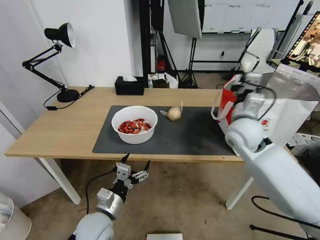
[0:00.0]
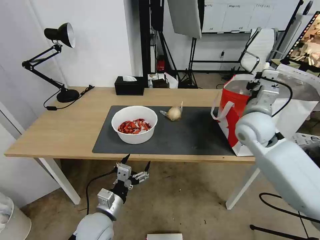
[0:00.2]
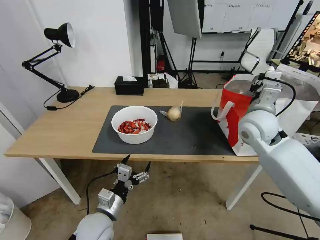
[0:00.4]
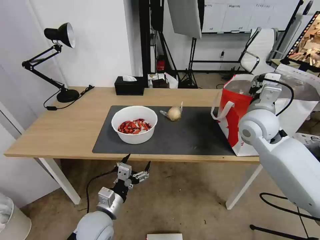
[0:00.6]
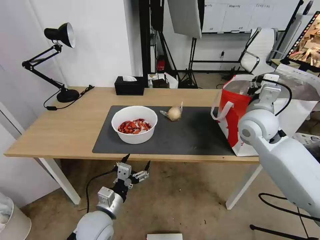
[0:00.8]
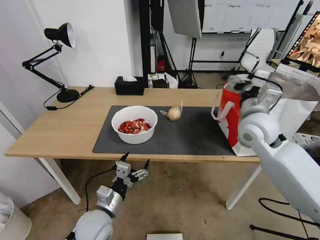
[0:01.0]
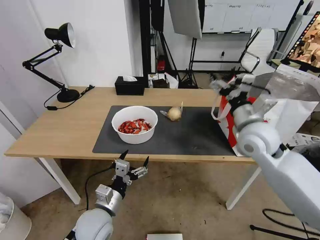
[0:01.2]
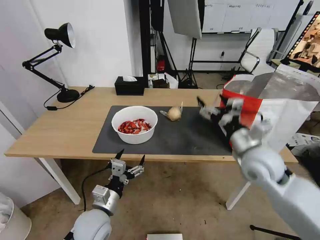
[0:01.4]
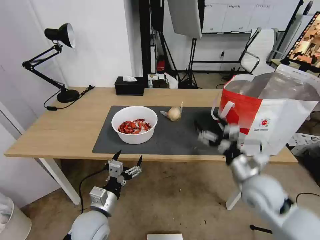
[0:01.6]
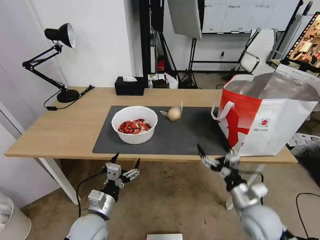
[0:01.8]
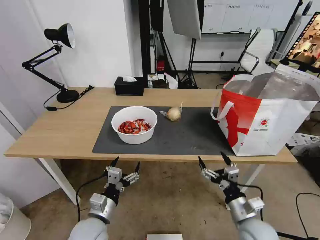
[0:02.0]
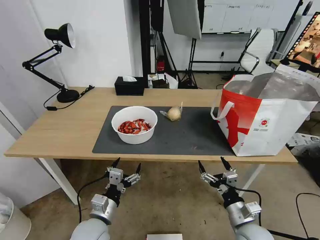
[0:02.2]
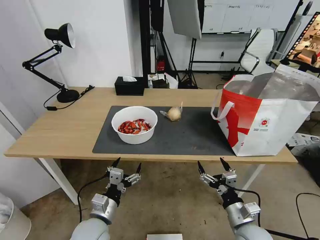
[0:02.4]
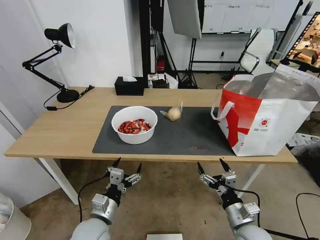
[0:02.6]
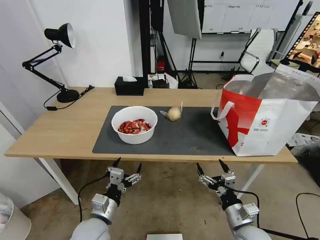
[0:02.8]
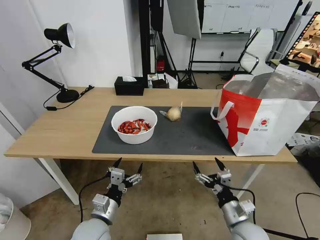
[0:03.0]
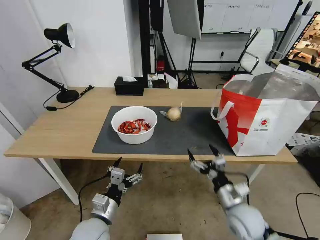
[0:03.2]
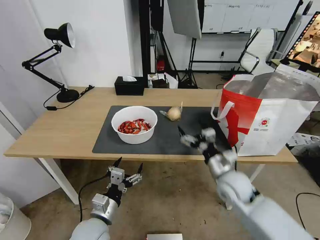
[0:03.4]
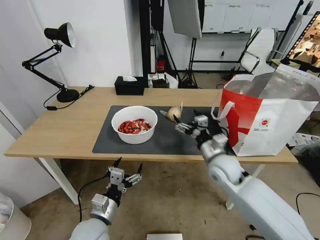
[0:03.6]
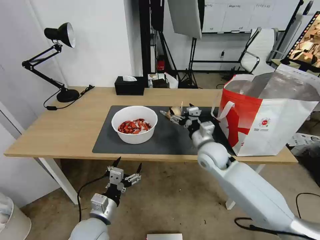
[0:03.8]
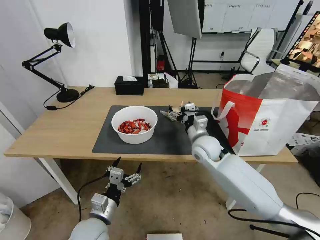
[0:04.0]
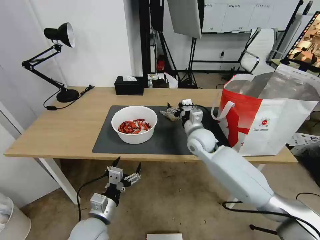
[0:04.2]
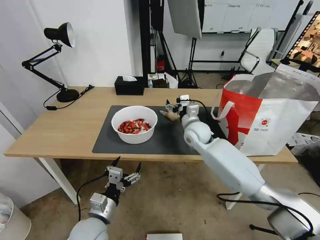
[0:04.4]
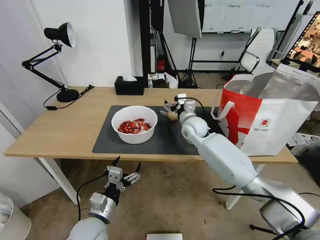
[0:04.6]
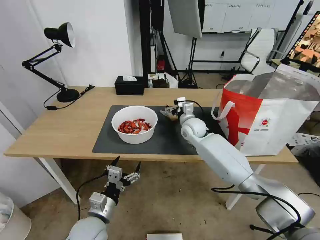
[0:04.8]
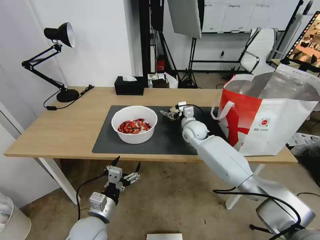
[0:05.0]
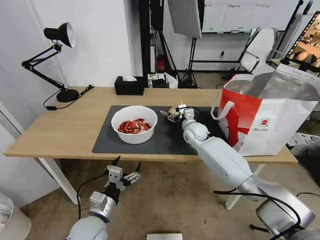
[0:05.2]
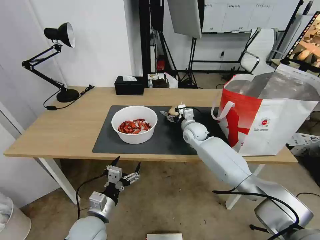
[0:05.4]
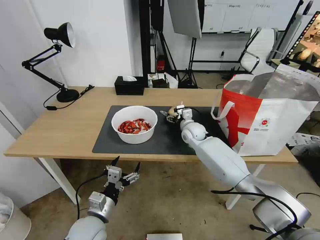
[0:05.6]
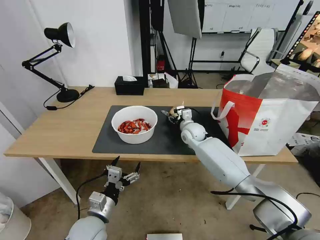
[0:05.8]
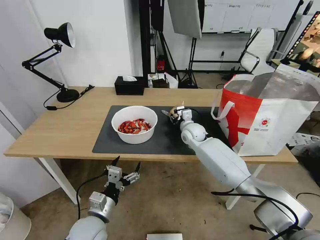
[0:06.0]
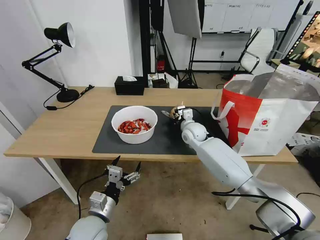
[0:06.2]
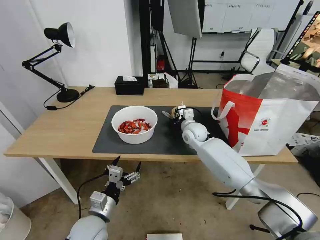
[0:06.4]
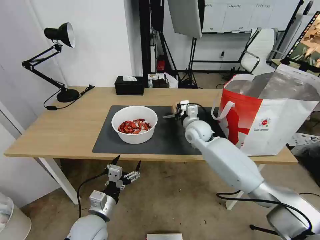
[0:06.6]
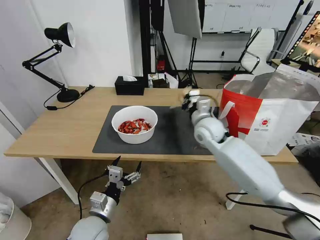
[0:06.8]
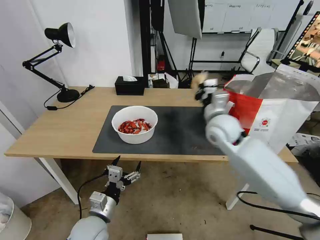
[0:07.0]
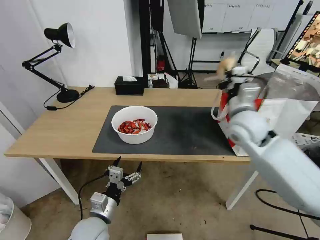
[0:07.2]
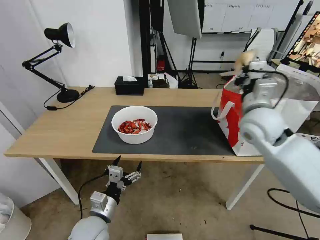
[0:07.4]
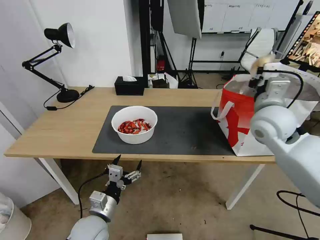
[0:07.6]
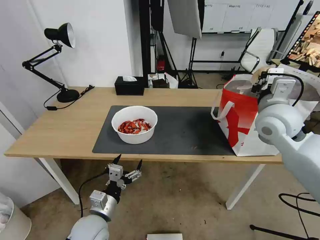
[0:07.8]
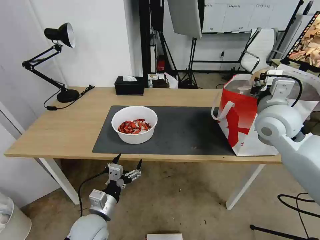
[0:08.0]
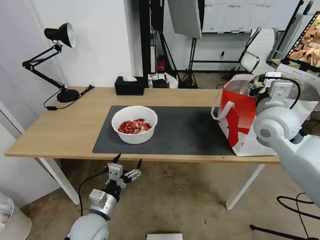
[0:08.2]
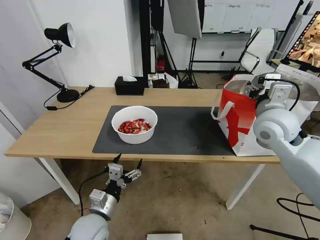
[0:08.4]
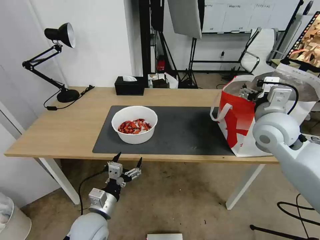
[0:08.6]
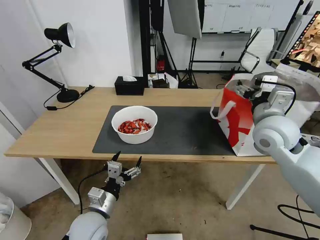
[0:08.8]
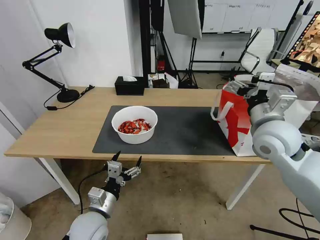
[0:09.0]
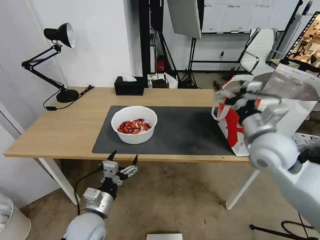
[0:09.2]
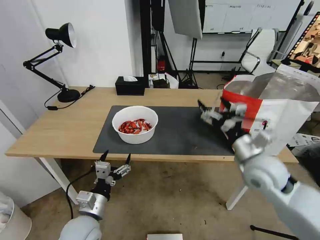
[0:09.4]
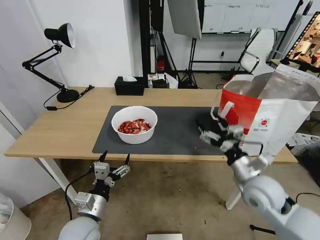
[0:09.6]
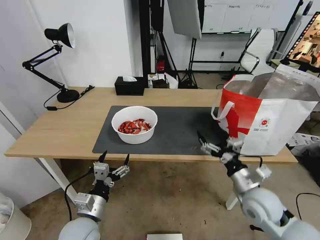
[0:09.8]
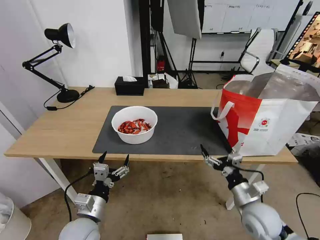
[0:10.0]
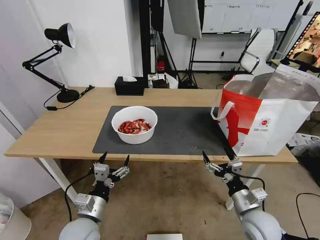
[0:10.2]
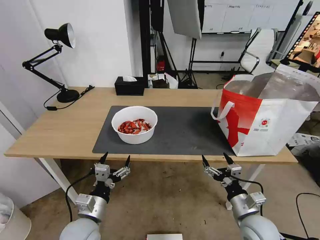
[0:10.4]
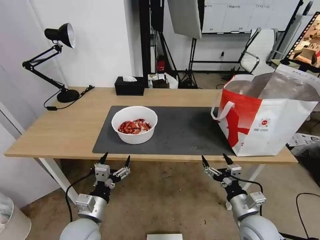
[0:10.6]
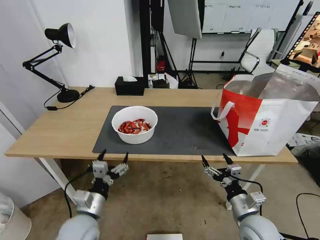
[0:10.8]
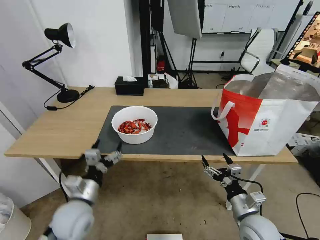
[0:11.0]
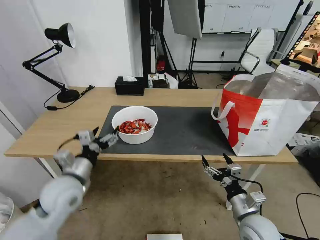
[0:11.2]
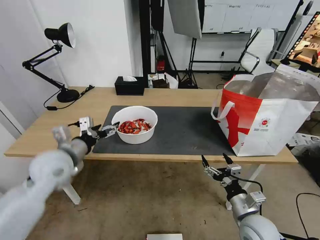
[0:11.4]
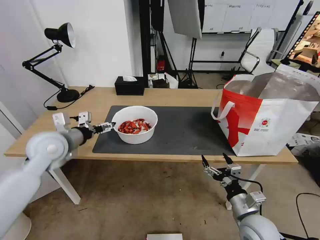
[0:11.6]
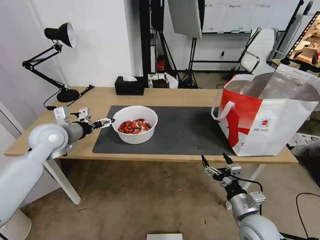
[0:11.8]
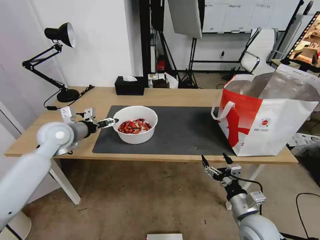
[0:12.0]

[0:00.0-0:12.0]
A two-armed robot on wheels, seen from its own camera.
Task of the whole recording: Pick up the trash from the table and place it into the takeout bag.
0:00.0 to 0:01.6: The right gripper travels backward and downward by roughly 15 cm, and opens its fingers.
0:01.6 to 0:03.0: The right gripper heads downward and backward, covering about 15 cm.
0:03.0 to 0:04.4: The right gripper is displaced forward and upward by about 35 cm.
0:04.4 to 0:06.0: The right gripper shifts roughly 5 cm downward, and closes its fingers.
0:06.0 to 0:07.6: The right gripper goes about 30 cm upward, to the right and backward, and closes up.
0:07.6 to 0:09.0: The right gripper opens up.
0:09.0 to 0:10.4: The right gripper goes roughly 30 cm downward and backward.
0:10.4 to 0:12.0: The left gripper goes roughly 30 cm forward, upward and to the left.

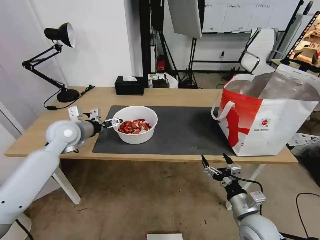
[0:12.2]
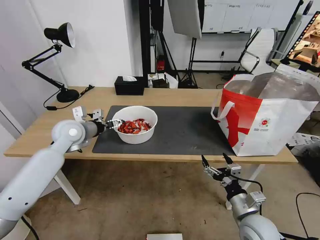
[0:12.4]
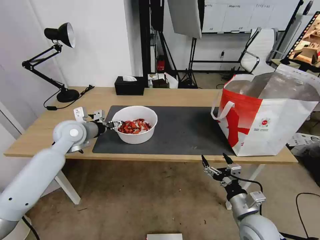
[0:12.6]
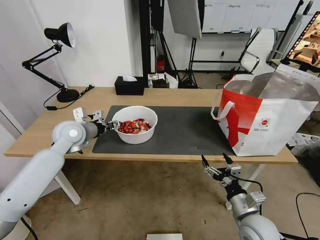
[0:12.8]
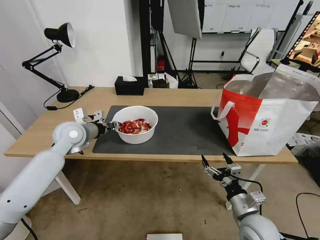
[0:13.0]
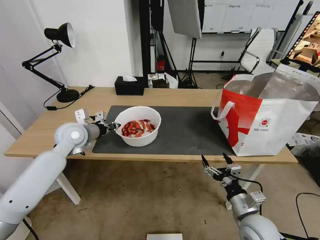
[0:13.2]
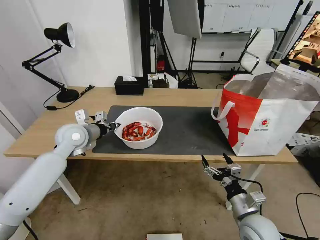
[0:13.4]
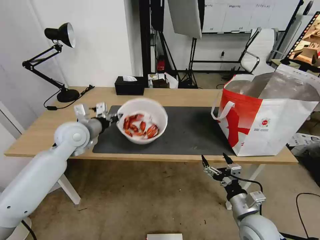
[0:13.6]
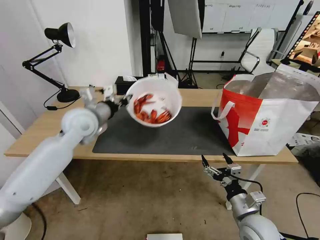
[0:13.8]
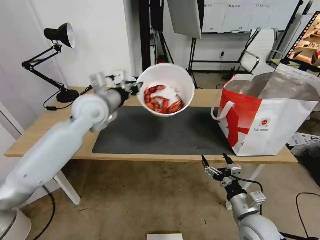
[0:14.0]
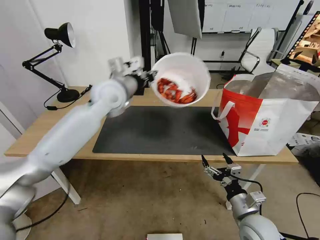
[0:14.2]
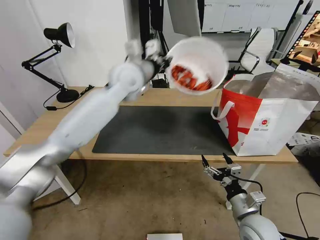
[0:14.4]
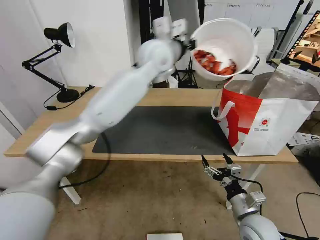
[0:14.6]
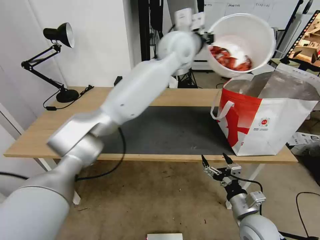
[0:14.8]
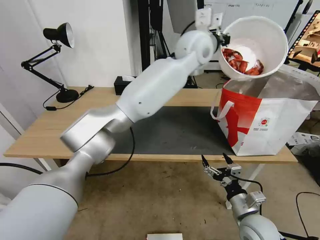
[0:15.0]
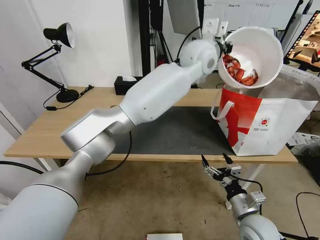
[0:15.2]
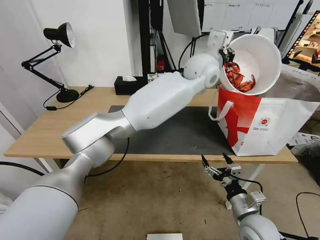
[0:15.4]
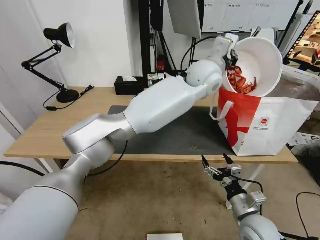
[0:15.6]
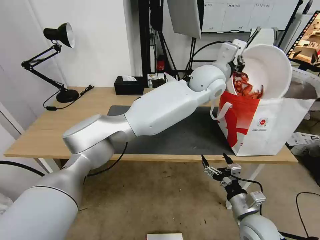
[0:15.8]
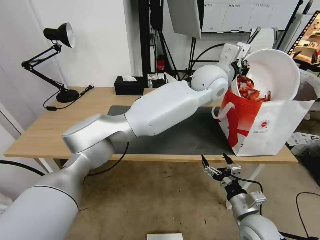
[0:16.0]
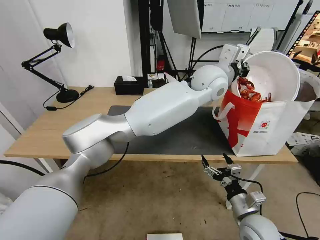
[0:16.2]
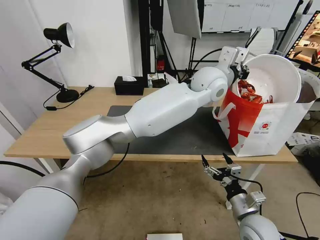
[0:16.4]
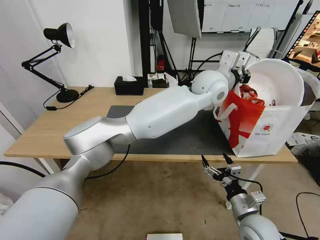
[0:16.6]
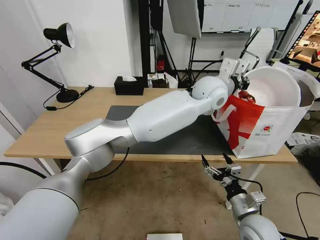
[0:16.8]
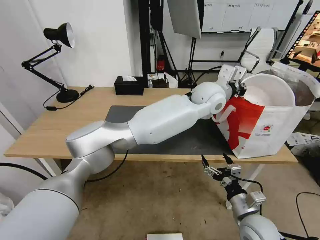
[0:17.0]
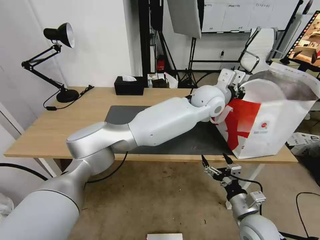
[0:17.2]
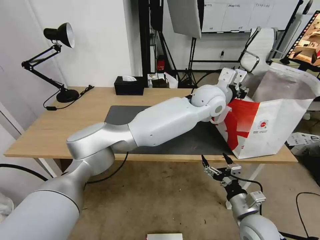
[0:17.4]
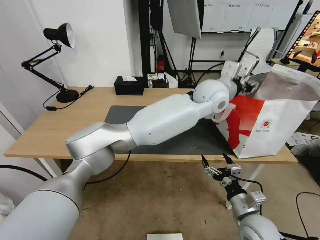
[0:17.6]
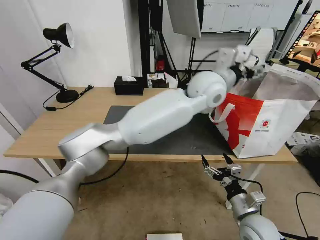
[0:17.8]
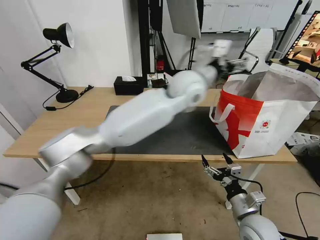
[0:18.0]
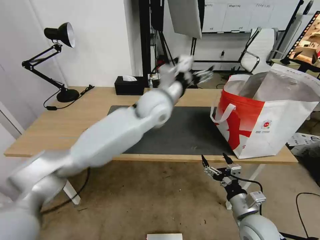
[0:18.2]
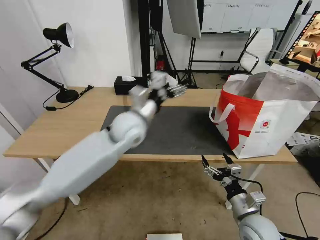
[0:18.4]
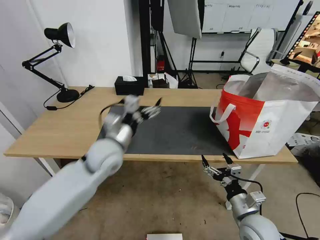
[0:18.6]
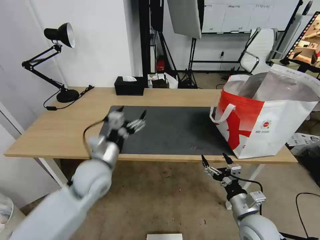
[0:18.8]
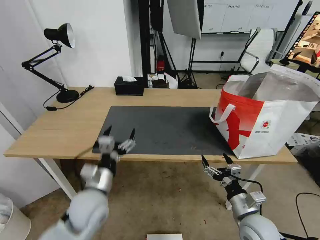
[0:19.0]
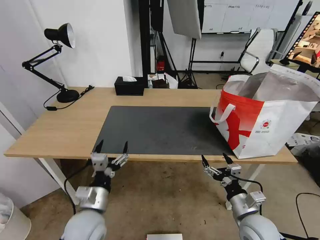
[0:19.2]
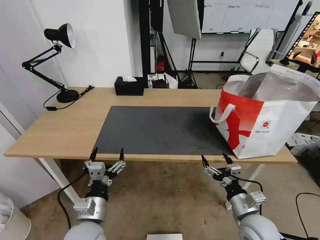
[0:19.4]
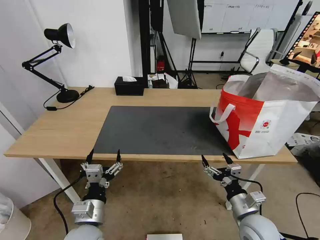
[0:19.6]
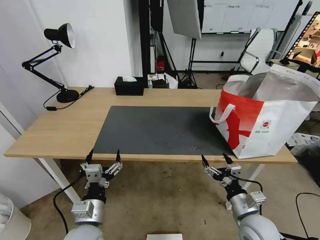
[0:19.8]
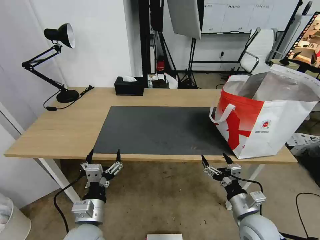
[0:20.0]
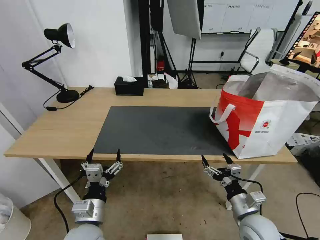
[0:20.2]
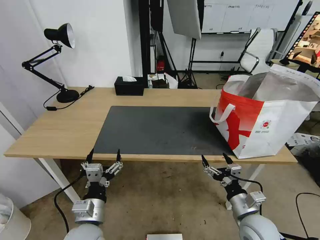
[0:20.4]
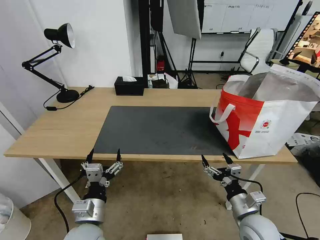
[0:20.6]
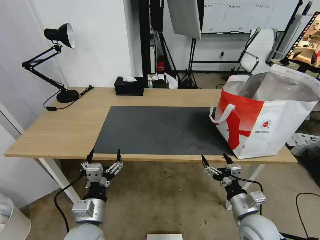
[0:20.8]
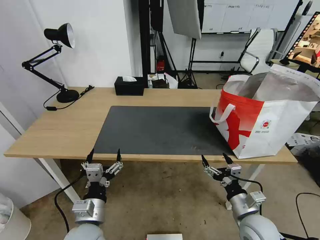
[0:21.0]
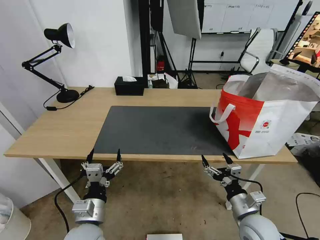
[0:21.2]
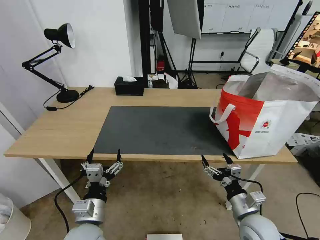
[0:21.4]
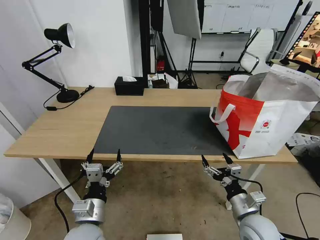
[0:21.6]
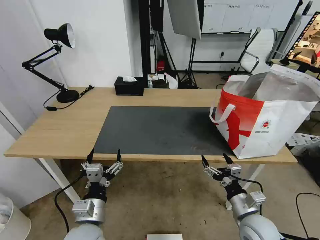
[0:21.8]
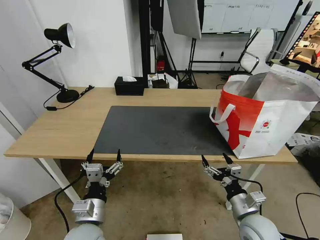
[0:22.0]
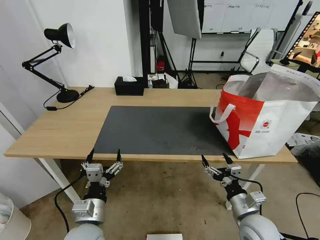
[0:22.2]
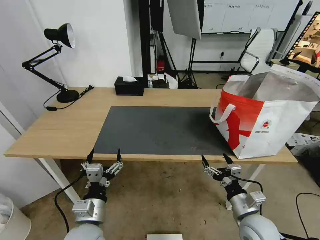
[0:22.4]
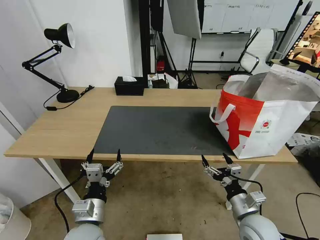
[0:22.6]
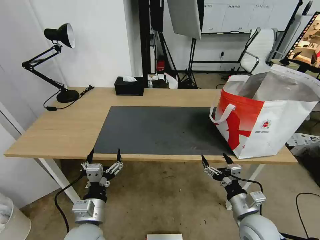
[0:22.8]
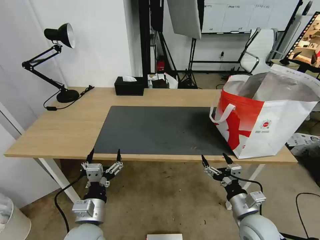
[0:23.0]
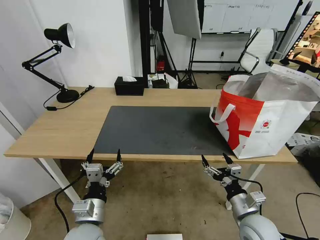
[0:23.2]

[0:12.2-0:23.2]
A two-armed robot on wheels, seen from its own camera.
Task of the whole recording: Pick up the trash from the table and place it into the takeout bag.
0:12.2 to 0:13.8: The left gripper is displaced to the right and upward by some 10 cm, and closes its fingers.
0:13.8 to 0:15.4: The left gripper goes about 35 cm to the right.
0:15.4 to 0:17.0: The left gripper is displaced downward by some 5 cm.
0:17.0 to 0:18.4: The left gripper shifts approximately 25 cm to the left, and opens its fingers.
0:18.4 to 0:20.0: The left gripper goes about 30 cm backward, downward and to the left.
0:20.0 to 0:23.2: Both grippers stay put.
